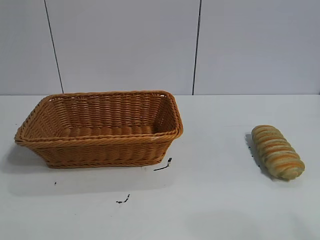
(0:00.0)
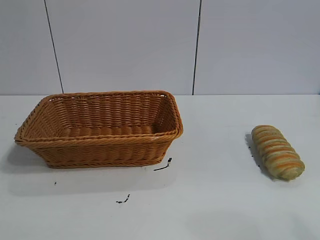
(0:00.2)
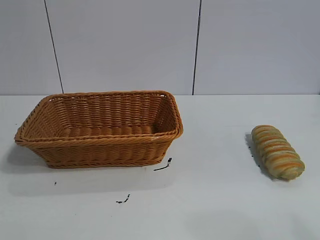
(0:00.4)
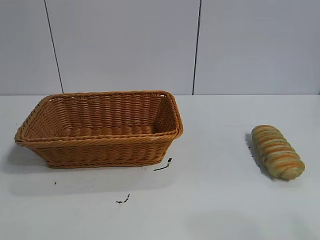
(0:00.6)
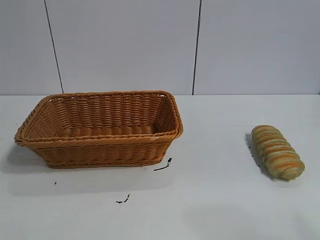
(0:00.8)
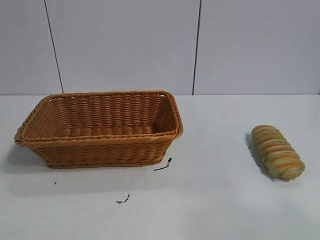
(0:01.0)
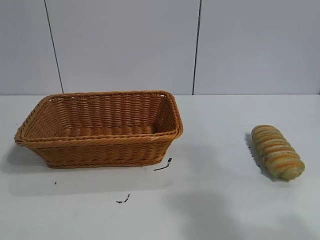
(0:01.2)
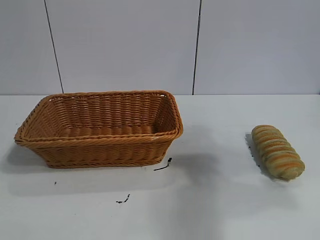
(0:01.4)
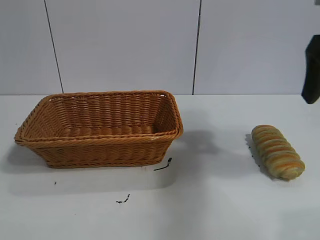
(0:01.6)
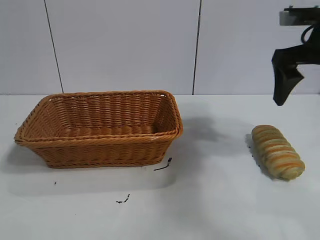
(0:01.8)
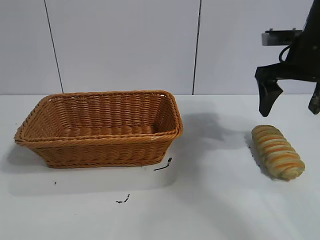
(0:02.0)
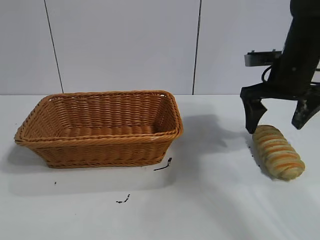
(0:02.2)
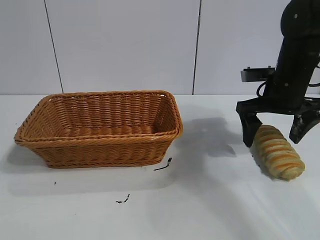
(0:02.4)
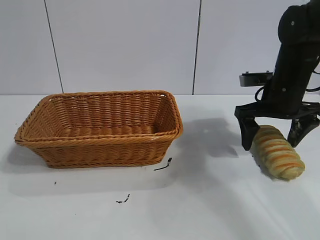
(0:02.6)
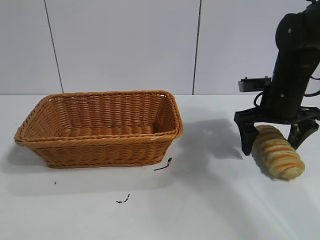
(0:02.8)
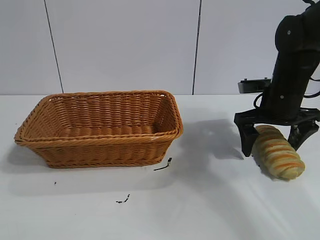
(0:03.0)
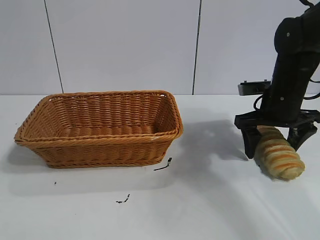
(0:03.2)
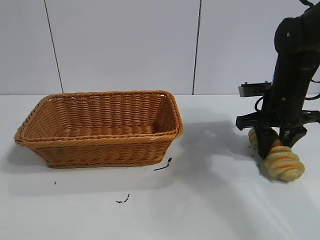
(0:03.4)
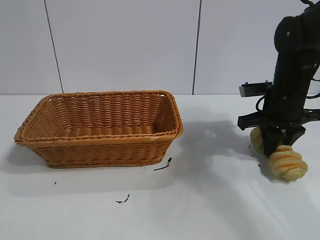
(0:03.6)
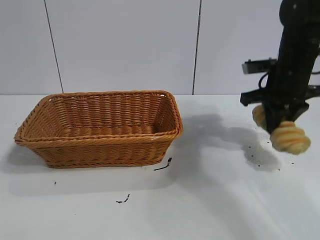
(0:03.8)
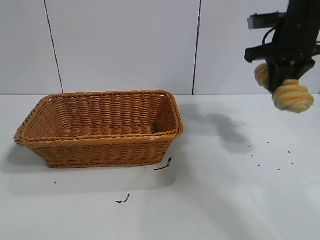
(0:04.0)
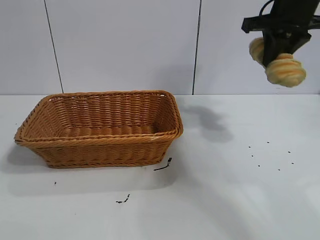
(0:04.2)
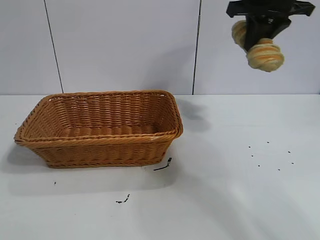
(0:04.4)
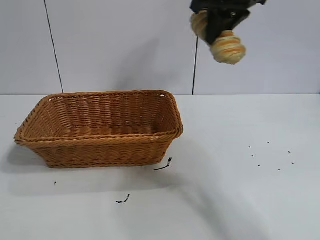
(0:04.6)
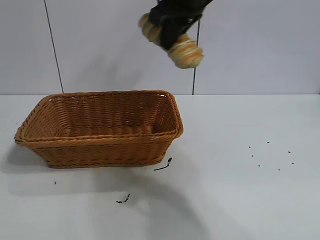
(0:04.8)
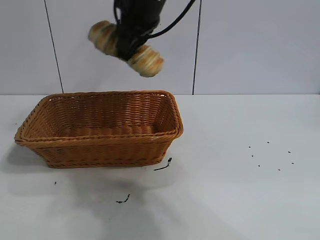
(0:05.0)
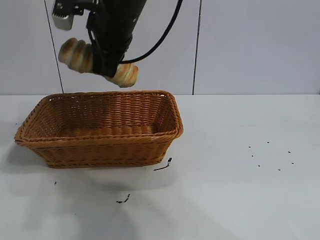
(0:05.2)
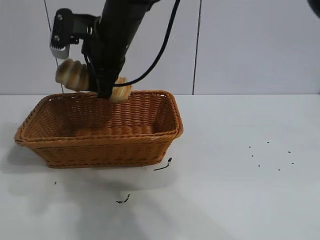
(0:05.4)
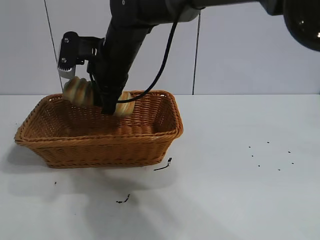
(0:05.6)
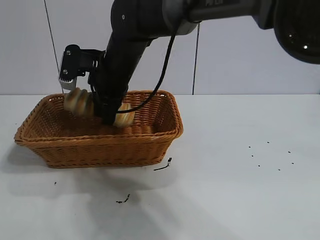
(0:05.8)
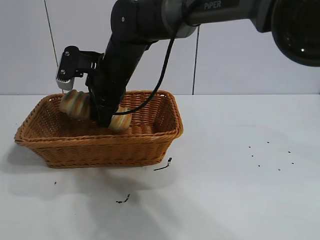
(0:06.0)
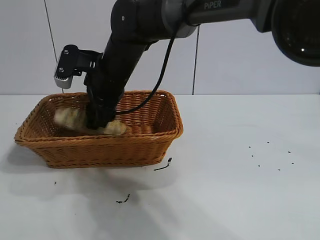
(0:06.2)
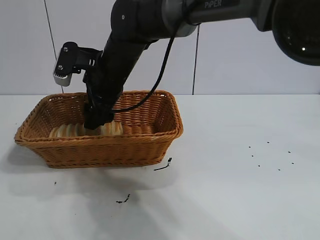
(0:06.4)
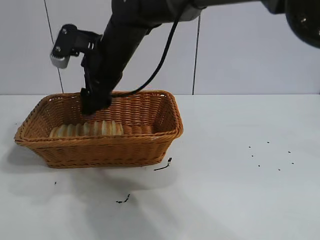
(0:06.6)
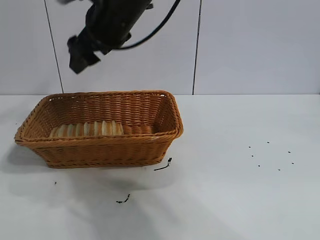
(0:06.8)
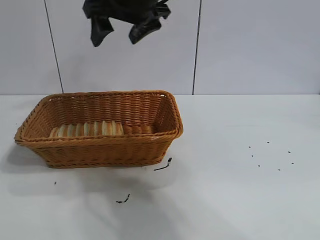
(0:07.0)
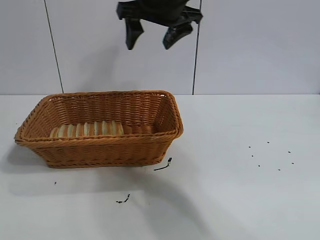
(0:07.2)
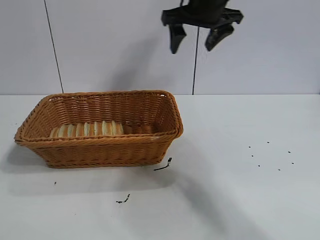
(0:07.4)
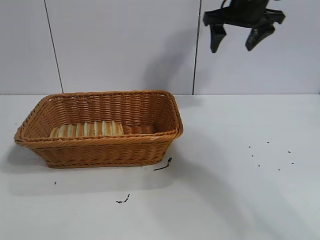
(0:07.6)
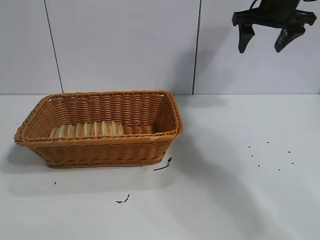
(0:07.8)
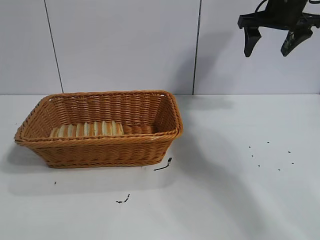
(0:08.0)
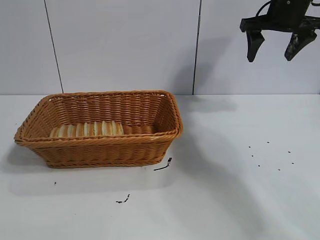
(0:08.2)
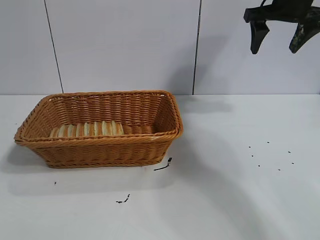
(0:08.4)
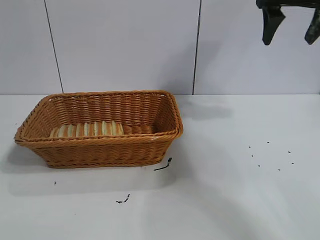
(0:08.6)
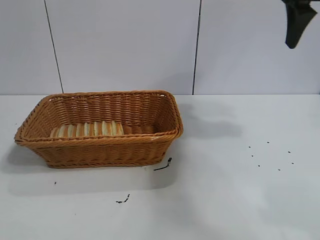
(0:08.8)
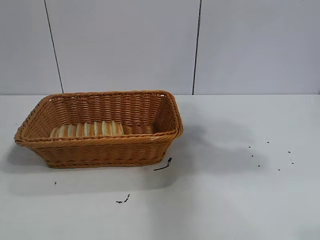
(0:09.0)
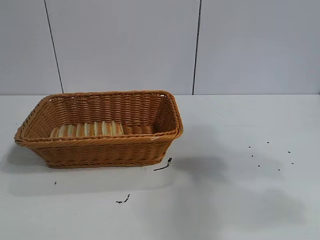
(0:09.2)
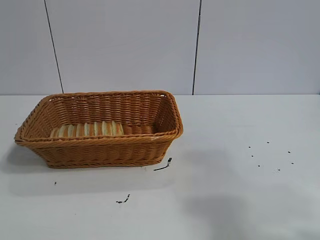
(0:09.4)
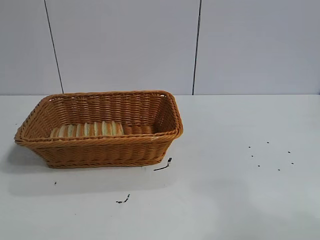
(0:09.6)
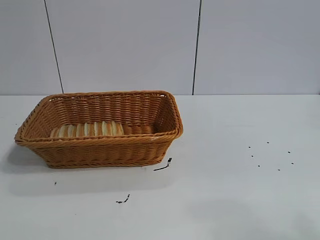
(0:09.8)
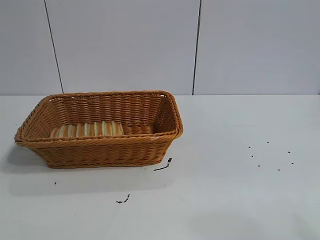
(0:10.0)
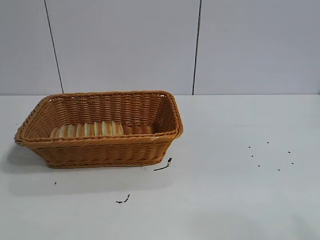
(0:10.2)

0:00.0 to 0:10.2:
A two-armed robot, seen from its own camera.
Task of the whole recording: pick up the long bread and put it into the basket.
Step, 0:01.6 to 0:03.6: Grasp the long bread with right gripper.
Step, 0:03.8 to 0:06.4: Place the long bread in the basket with right gripper.
